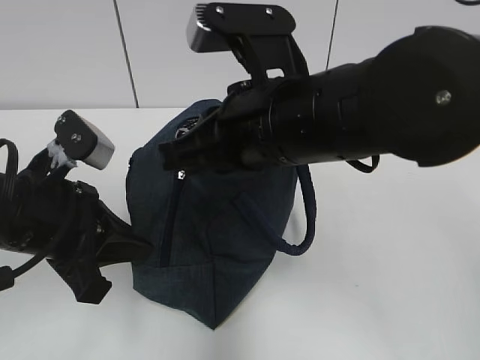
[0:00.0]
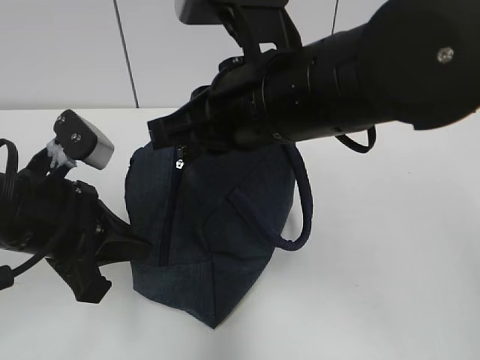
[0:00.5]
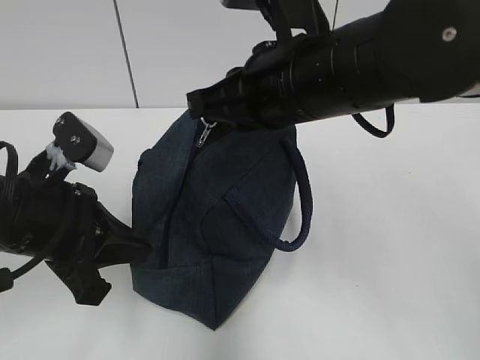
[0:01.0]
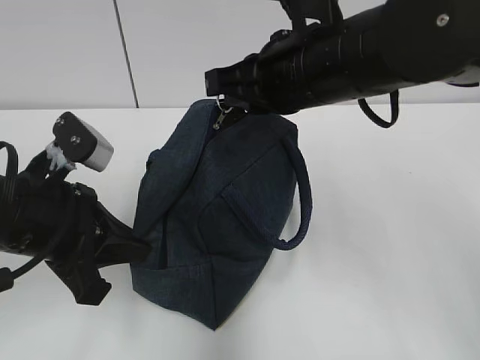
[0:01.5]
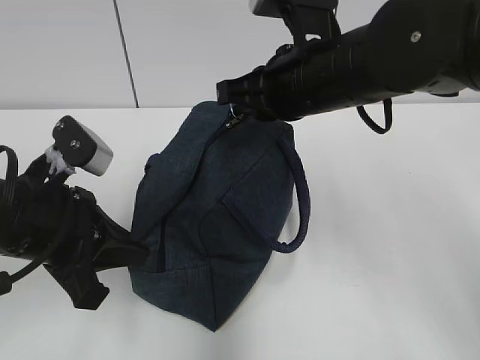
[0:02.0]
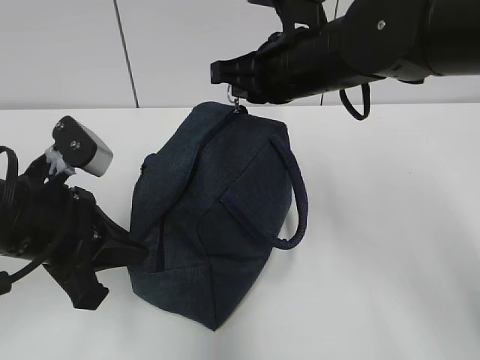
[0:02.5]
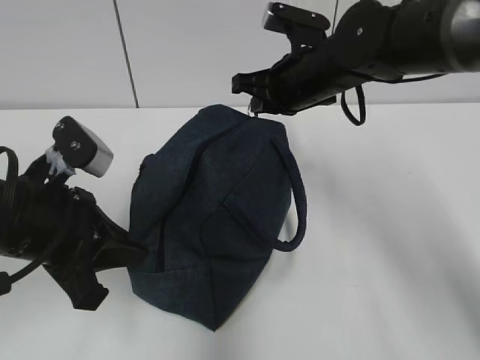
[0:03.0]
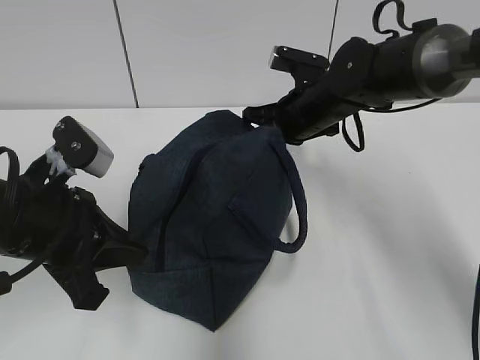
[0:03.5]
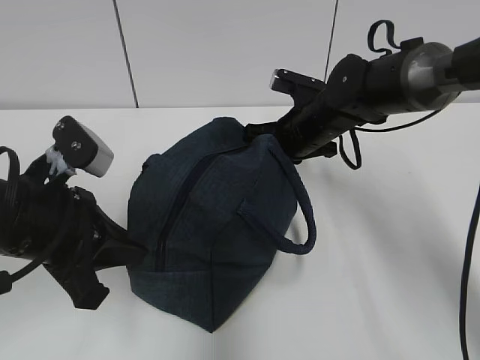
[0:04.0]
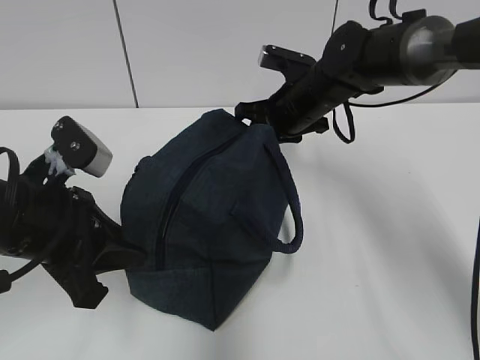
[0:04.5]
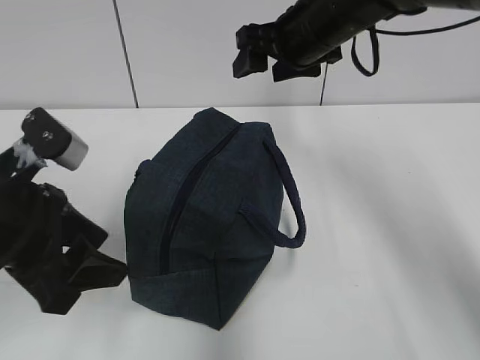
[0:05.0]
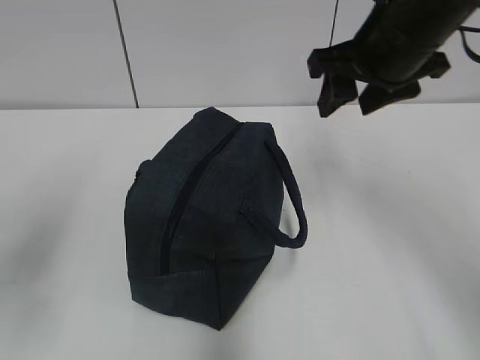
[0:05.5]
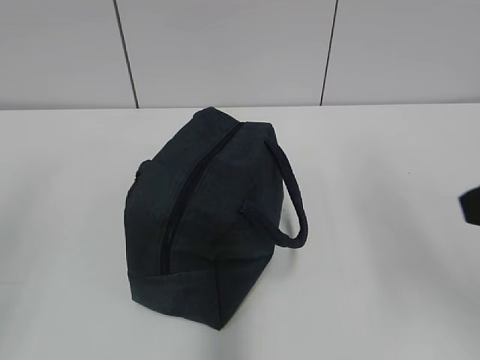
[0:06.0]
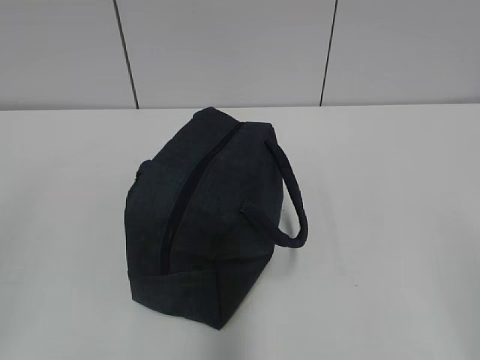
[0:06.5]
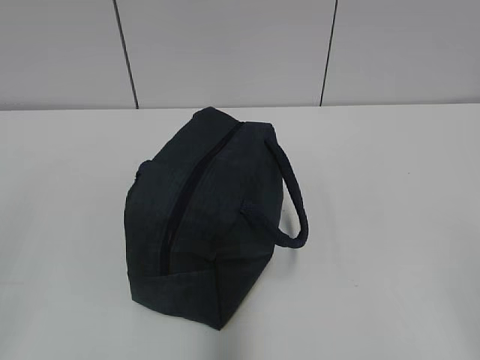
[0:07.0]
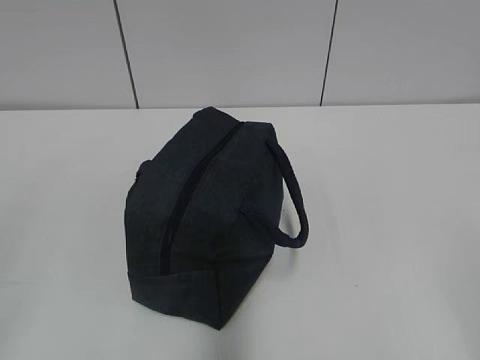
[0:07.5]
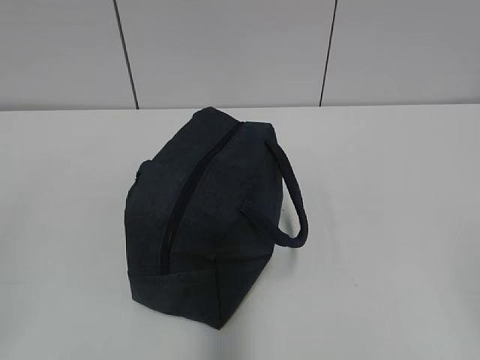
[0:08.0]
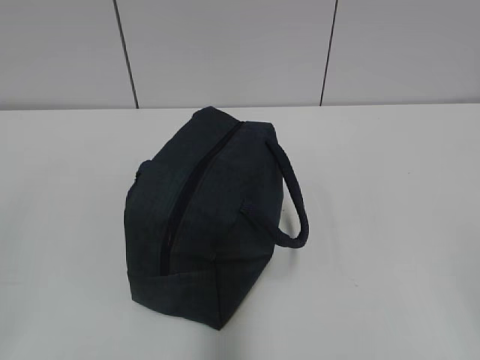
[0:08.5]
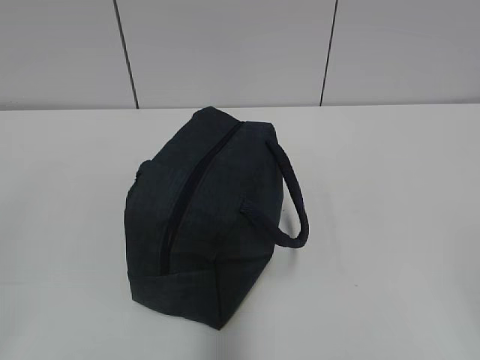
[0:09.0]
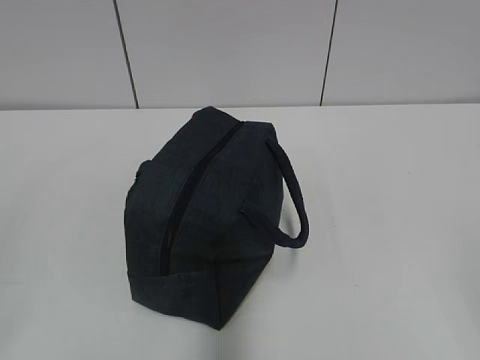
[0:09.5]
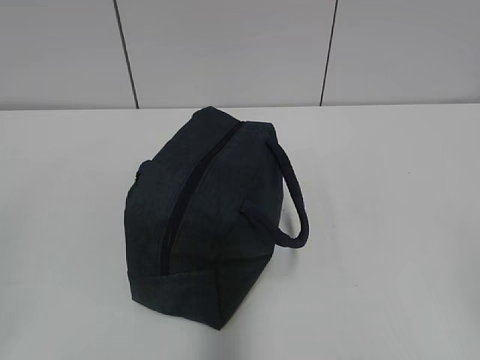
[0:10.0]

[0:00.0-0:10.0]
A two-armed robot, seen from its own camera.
0:00.0 to 0:02.0: The right gripper heads forward, covering about 10 cm.
0:02.0 to 0:04.0: The right gripper heads downward and forward, covering roughly 15 cm.
0:04.0 to 0:06.0: The left gripper heads backward, to the left and upward, covering roughly 25 cm, and opens up; the right gripper heads backward and upward, covering approximately 35 cm, and opens.
0:06.0 to 0:08.0: The right gripper is displaced backward and to the right by approximately 15 cm.
0:08.0 to 0:10.0: The two grippers keep their place.

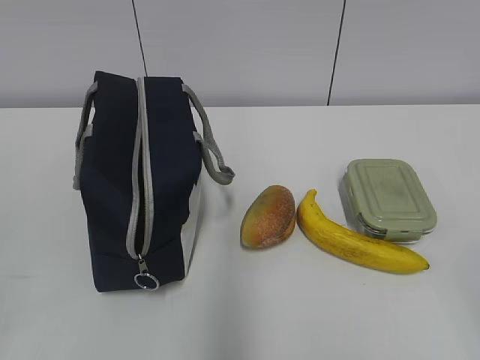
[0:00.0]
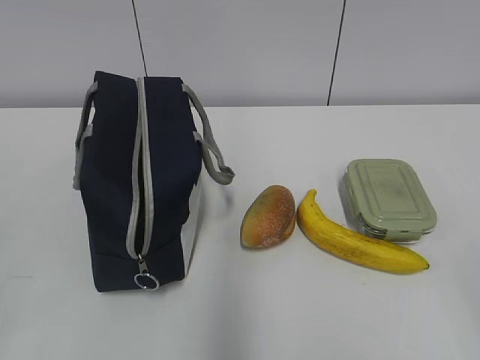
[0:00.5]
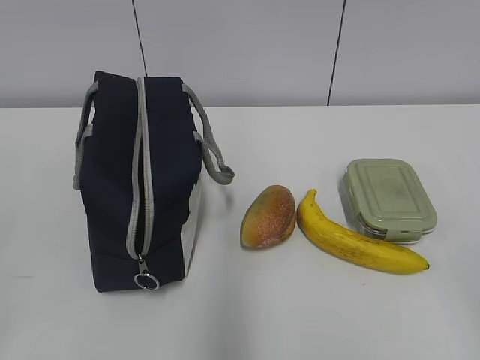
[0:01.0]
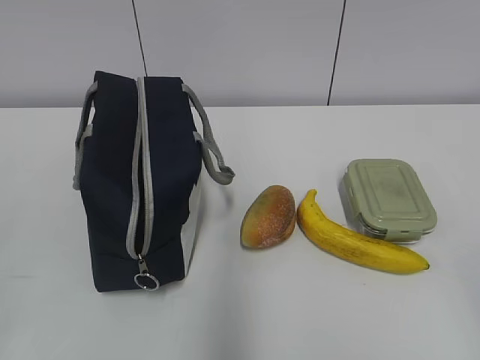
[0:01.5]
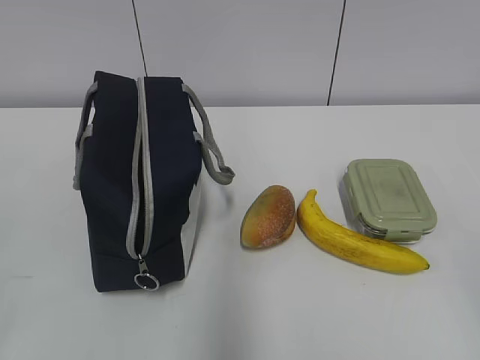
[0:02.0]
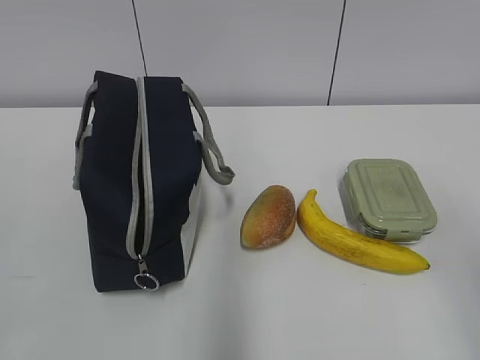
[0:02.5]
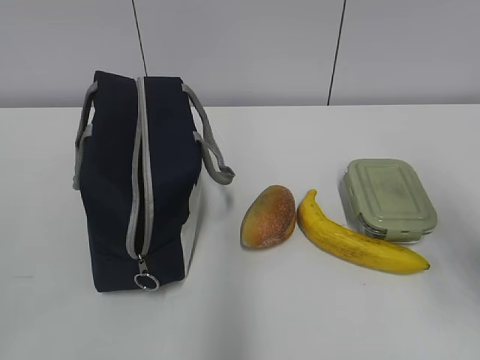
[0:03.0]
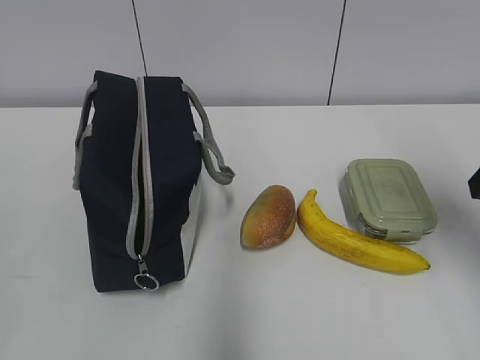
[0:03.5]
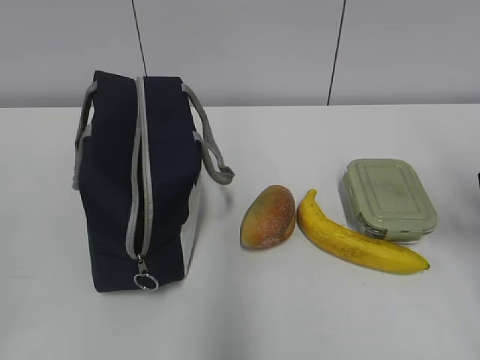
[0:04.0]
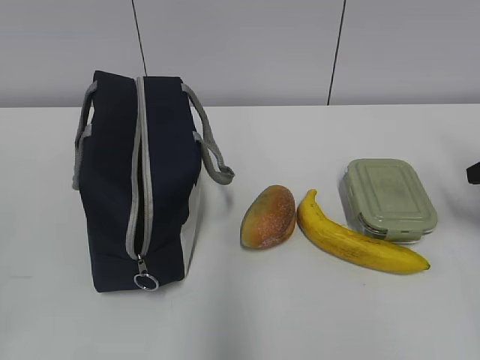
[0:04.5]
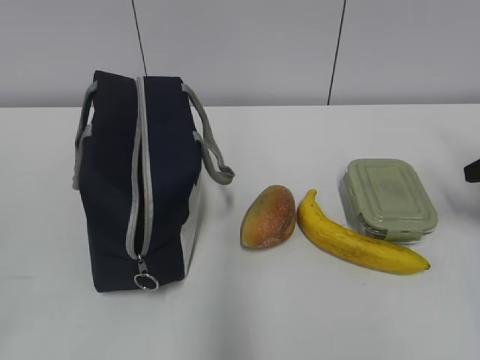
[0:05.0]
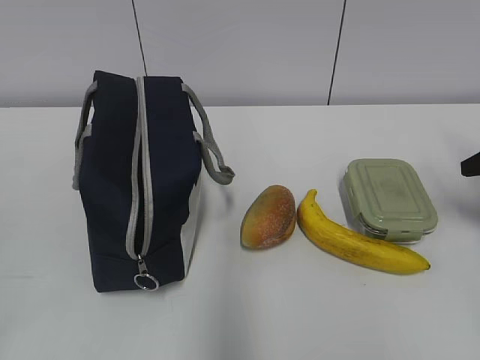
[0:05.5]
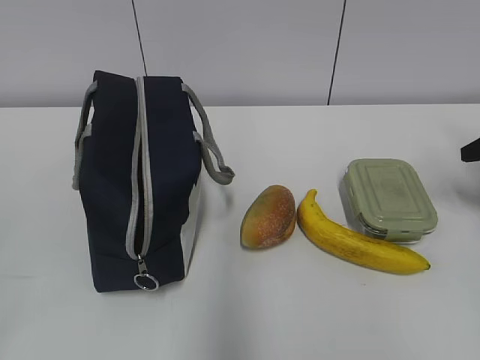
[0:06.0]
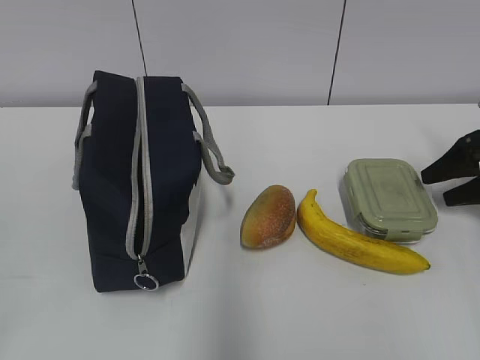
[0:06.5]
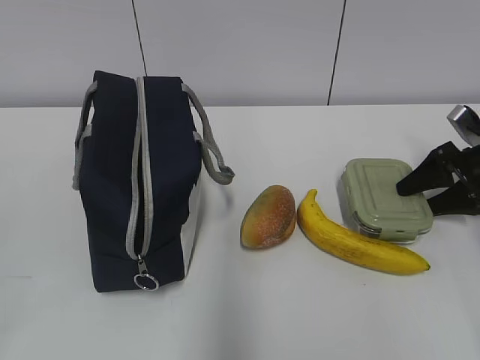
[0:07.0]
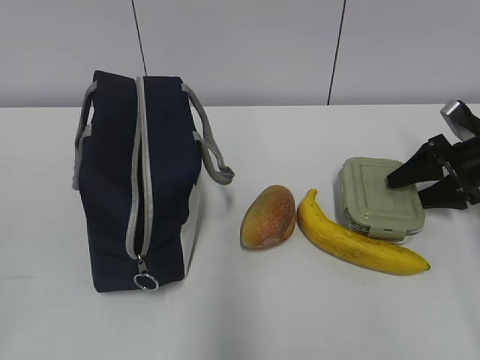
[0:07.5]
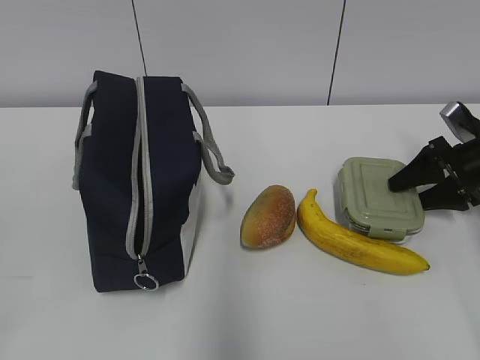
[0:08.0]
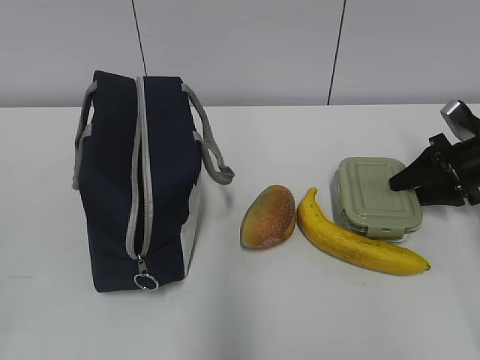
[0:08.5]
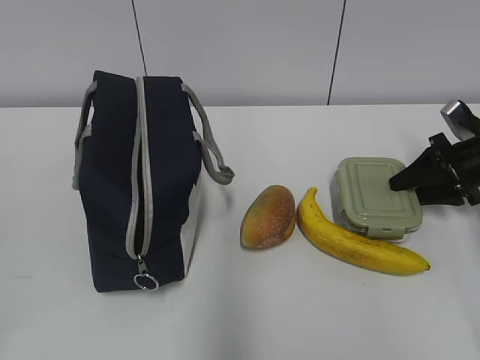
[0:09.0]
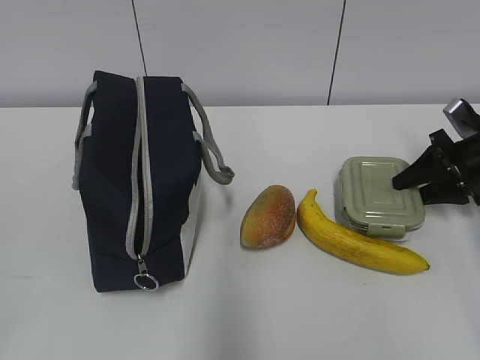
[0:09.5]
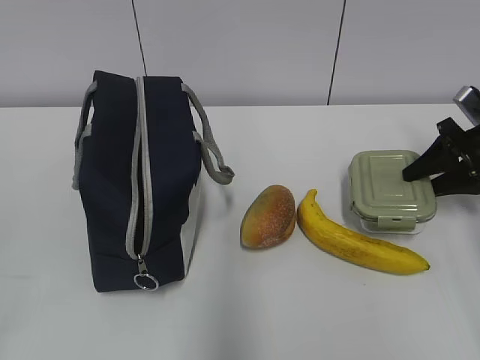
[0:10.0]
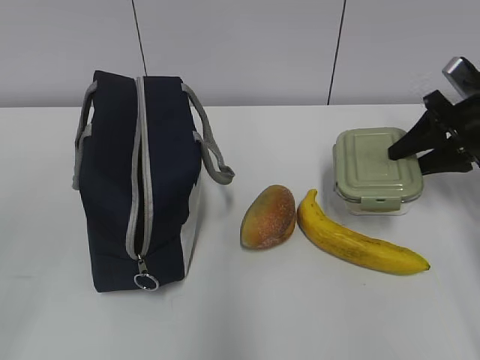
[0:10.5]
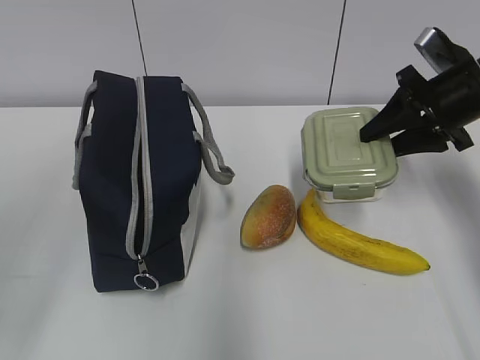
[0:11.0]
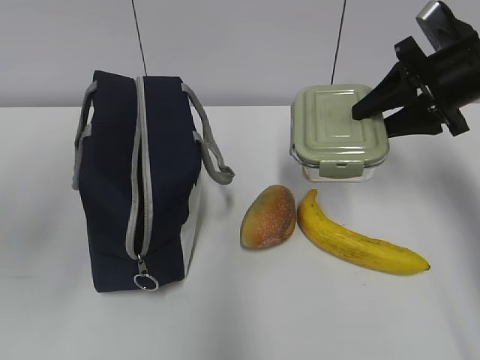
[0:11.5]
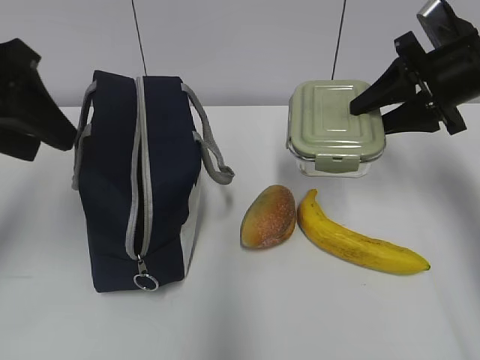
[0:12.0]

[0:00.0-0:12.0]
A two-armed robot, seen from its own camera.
Step, 0:00.0 to 0:09.5: Grab the lunch box with your right hand.
0:02.0 to 0:04.0: The right gripper moves forward, some 30 cm.
0:04.0 to 0:06.0: The right gripper moves forward, to the right and downward, approximately 10 cm.
0:06.0 to 0:08.0: The right gripper is displaced to the left, downward and forward by roughly 10 cm.
0:08.0 to 0:10.0: The grippers stay close to where they were, moving slightly.
0:10.0 to 0:12.0: The left gripper heads forward and to the right, covering some 25 cm; the right gripper shifts approximately 15 cm upward and to the left.

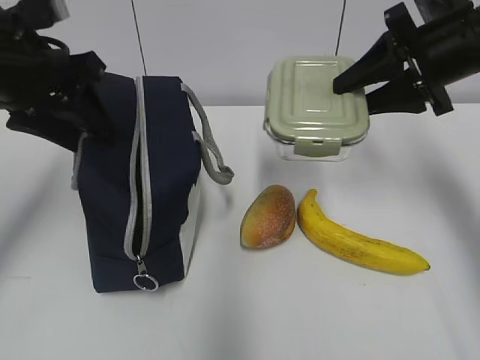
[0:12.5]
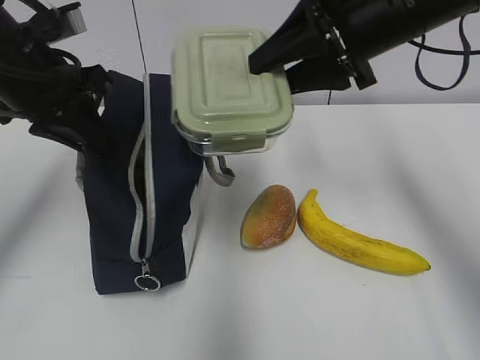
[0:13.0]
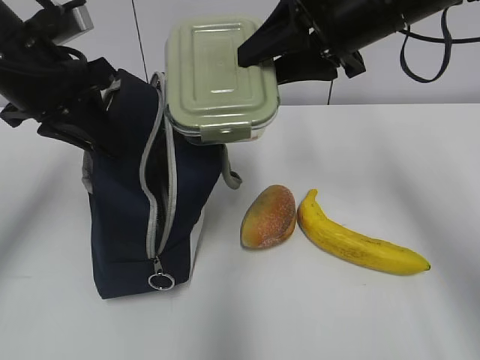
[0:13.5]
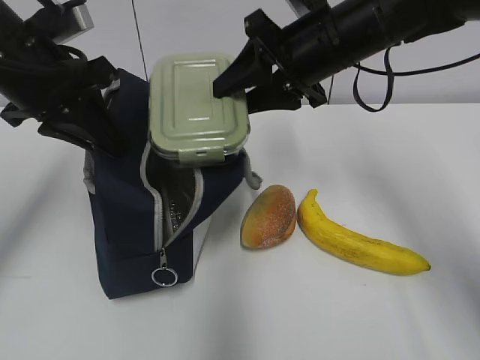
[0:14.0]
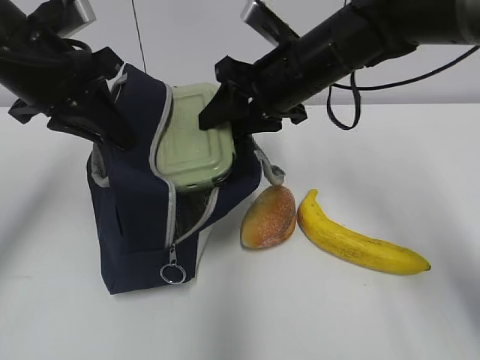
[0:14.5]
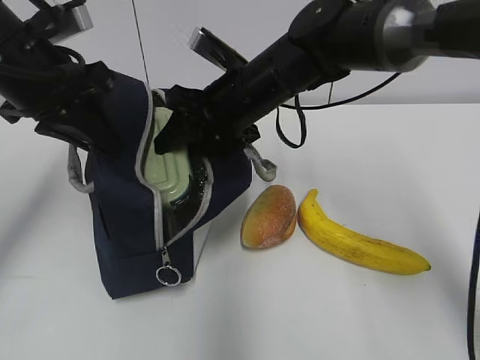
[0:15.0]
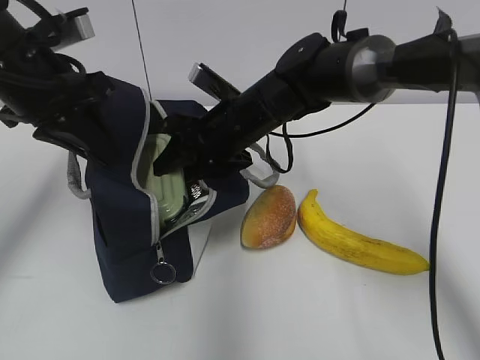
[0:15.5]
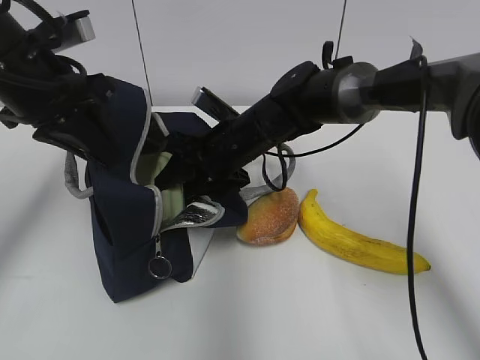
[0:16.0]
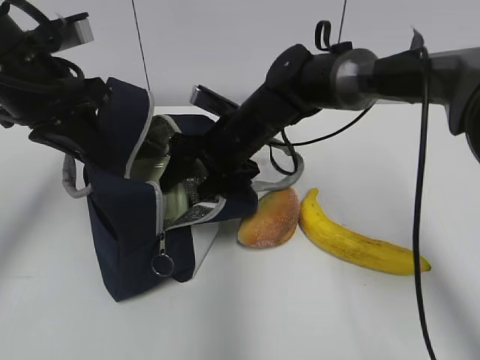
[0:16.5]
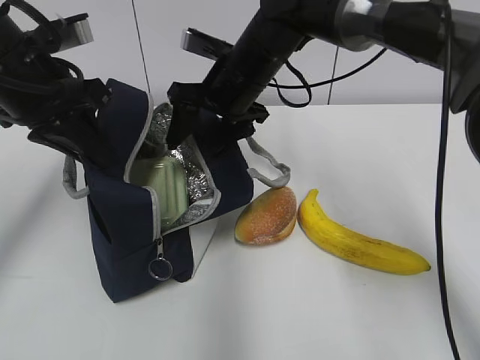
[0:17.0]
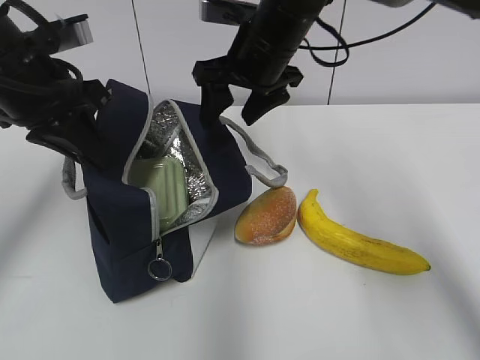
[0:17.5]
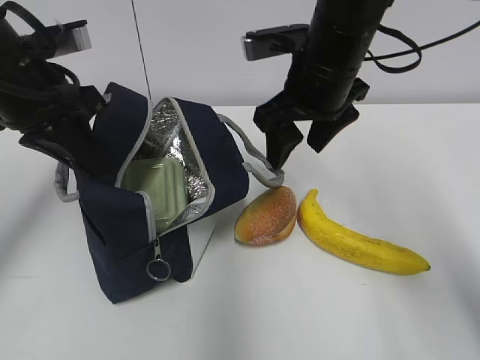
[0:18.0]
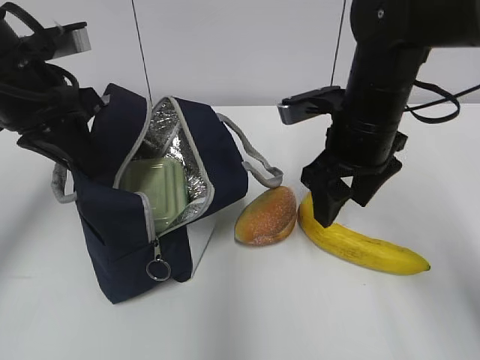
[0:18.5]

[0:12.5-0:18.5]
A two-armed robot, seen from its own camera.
Step, 0:13.0 to 0:16.5: Place it into the bag with your right hand.
0:12.5 to 0:14.5: The left gripper closes, while the right gripper heads to the left, covering roughly 15 cm.
0:14.5 to 0:16.5: The right gripper travels downward and to the left by roughly 10 cm, and opens its fingers.
0:16.5 to 0:18.5: The right gripper travels to the right, backward and upward by about 15 cm.
